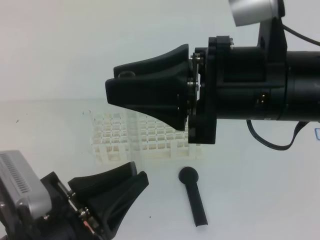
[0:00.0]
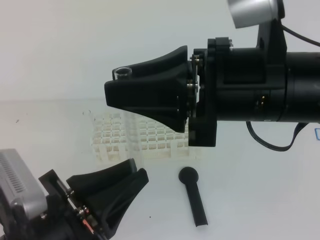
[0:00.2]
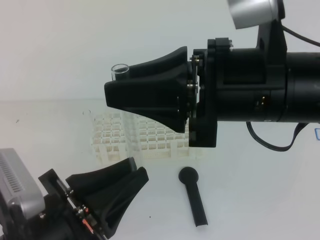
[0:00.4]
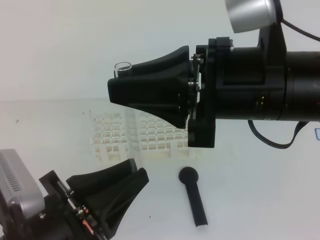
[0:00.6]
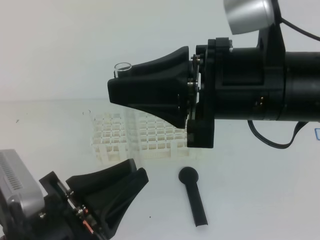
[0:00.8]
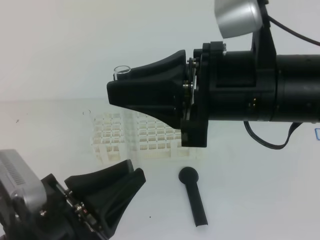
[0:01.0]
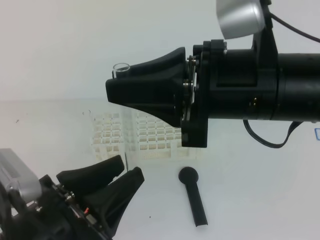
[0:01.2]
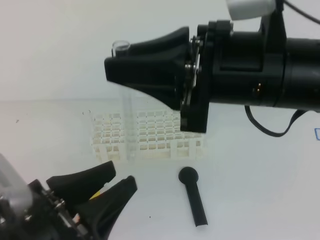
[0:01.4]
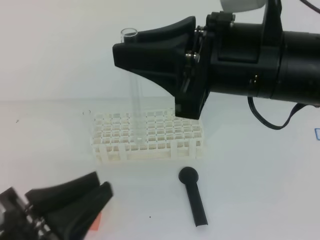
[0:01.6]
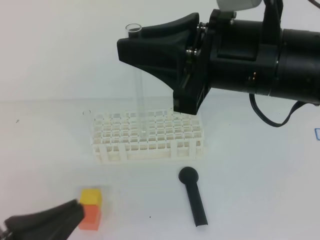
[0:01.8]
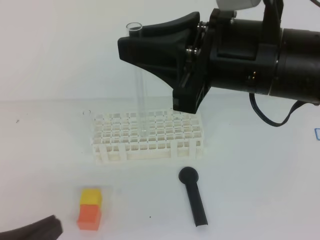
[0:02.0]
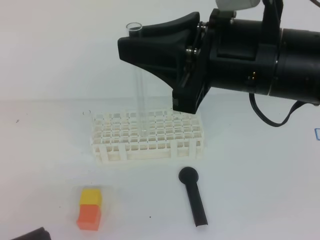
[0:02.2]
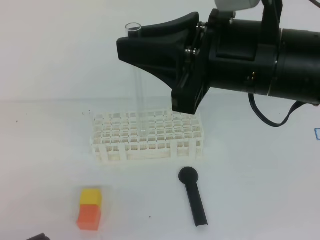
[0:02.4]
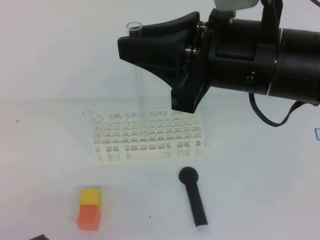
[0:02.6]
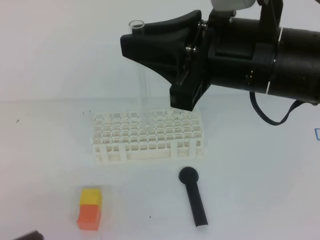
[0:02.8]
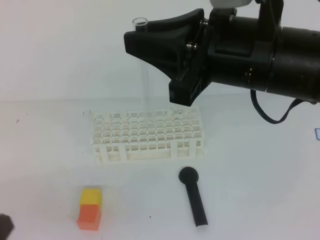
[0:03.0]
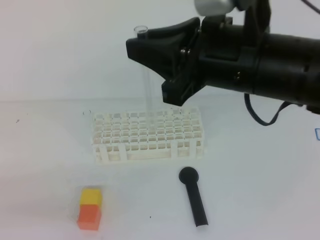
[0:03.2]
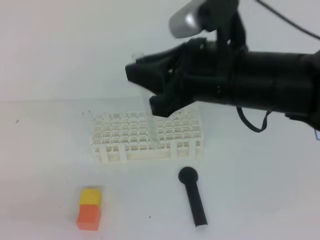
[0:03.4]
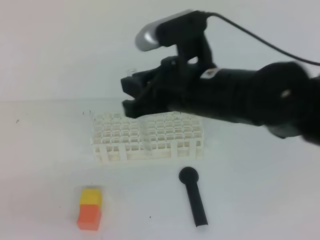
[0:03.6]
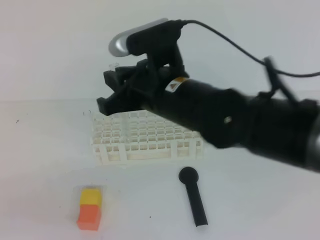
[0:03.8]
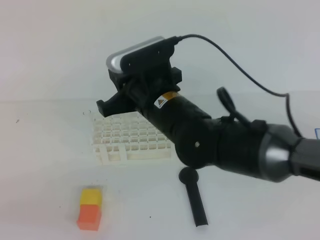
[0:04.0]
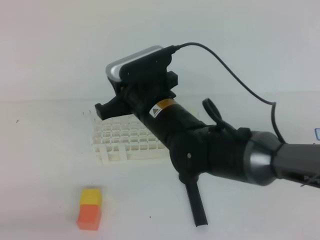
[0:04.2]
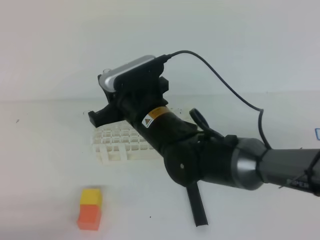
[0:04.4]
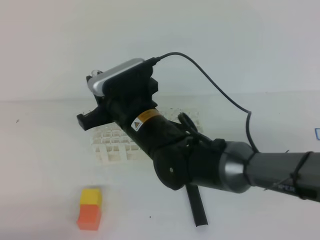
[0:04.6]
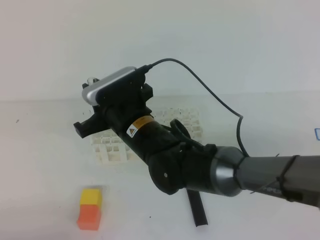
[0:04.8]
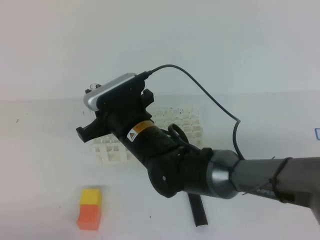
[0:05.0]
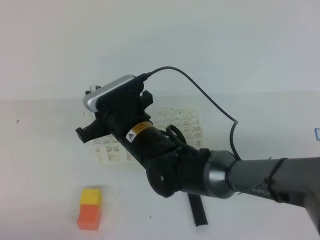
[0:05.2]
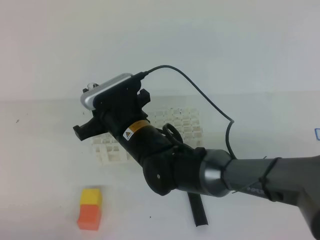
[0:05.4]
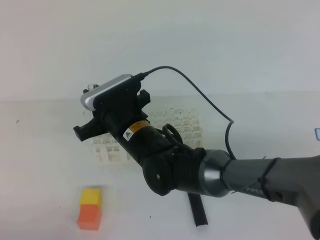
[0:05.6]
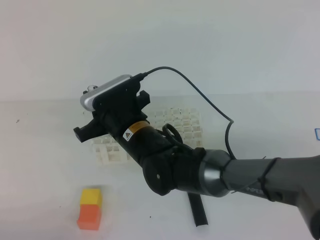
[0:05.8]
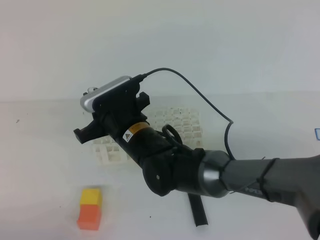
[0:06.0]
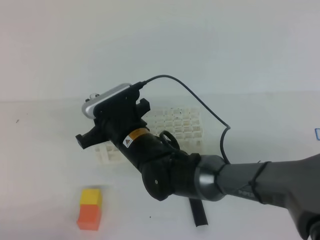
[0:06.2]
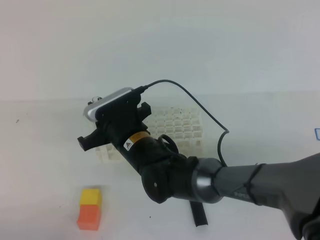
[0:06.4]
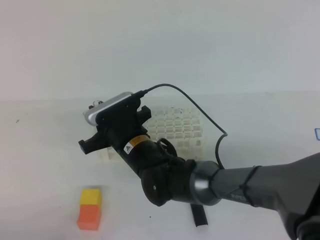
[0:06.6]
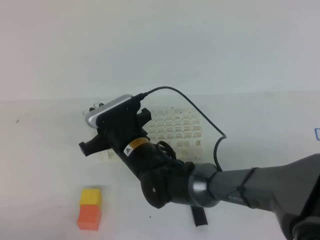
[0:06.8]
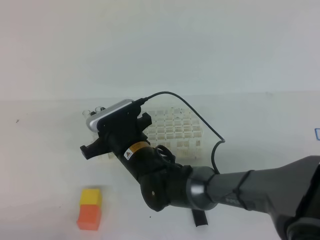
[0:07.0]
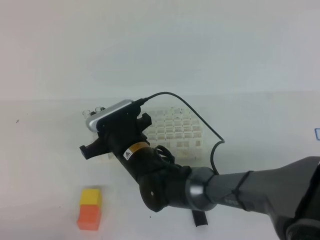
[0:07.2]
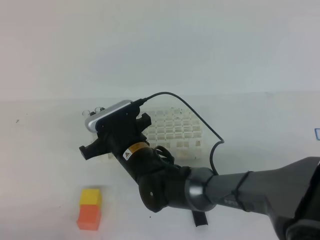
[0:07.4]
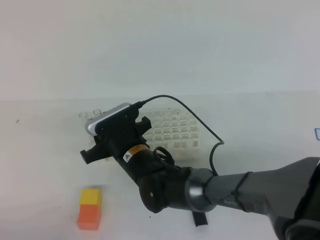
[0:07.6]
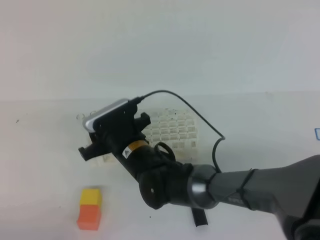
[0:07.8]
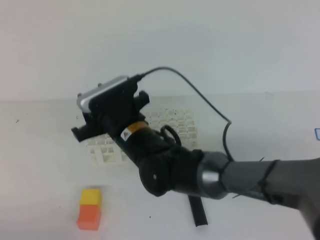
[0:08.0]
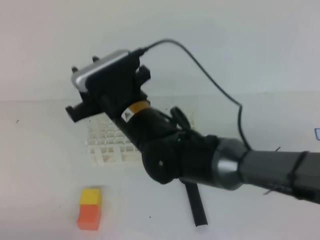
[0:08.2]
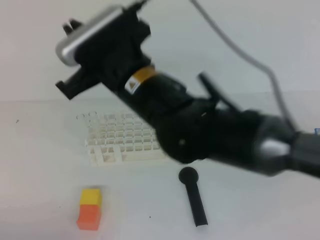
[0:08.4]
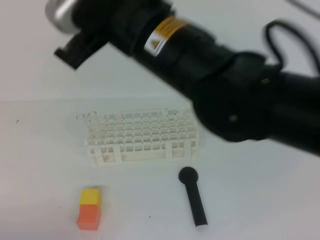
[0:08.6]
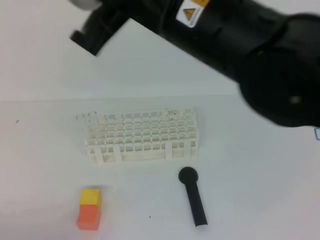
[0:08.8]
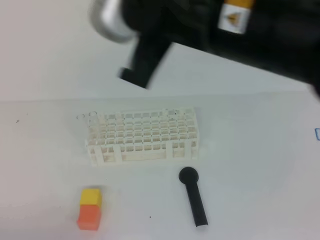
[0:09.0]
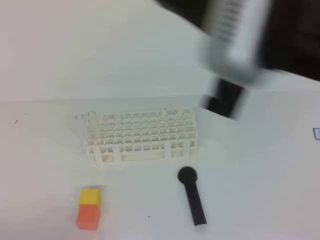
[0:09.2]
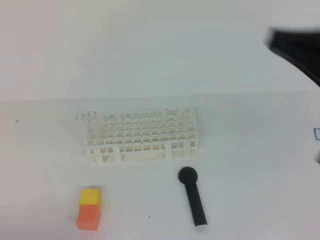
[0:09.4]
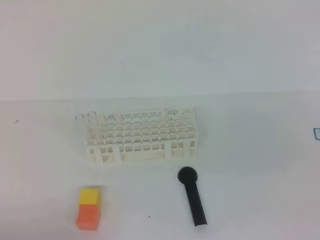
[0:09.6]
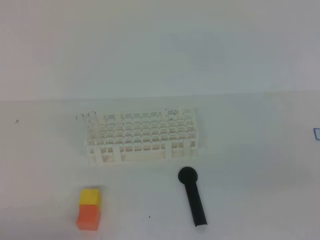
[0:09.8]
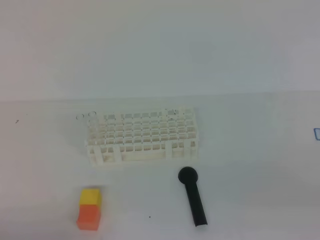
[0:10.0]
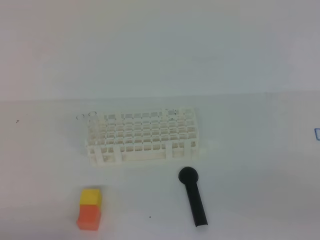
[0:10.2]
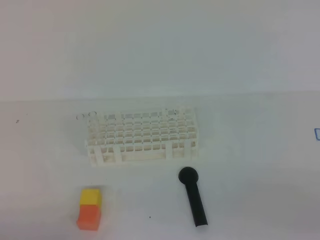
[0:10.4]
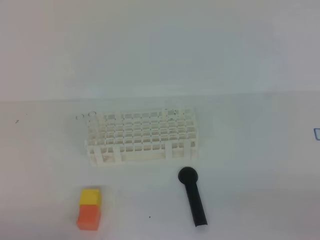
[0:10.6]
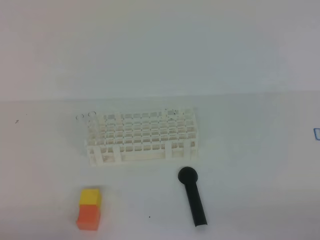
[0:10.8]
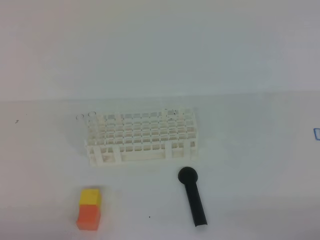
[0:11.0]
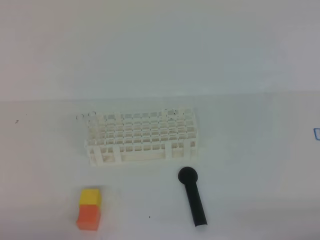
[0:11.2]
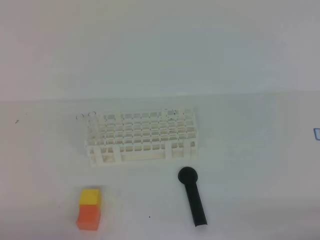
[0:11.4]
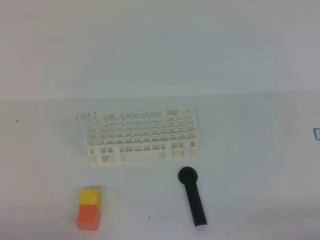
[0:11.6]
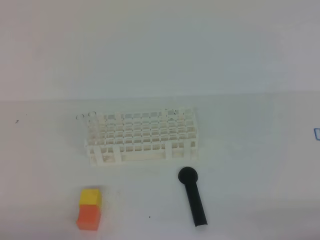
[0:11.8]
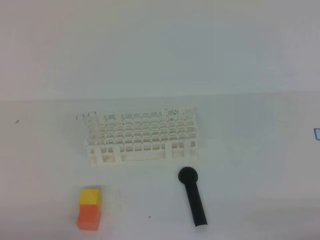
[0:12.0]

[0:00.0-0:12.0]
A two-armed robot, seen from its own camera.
0:01.6 to 0:03.0: The left gripper heads to the left, covering some 10 cm, and closes its fingers.
0:03.0 to 0:04.4: The left gripper travels downward by some 5 cm. The right gripper heads downward, to the left and forward, covering roughly 20 cm.
0:04.4 to 0:06.0: The right gripper changes place by about 5 cm.
0:06.0 to 0:07.6: The right gripper travels downward by about 5 cm.
0:07.6 to 0:09.0: The right gripper shifts approximately 30 cm upward, and closes its fingers.
0:09.0 to 0:10.4: The right gripper goes about 35 cm to the right, downward and backward.

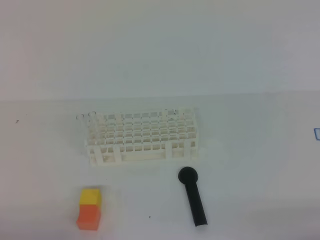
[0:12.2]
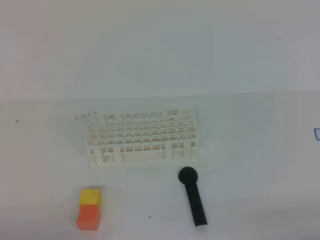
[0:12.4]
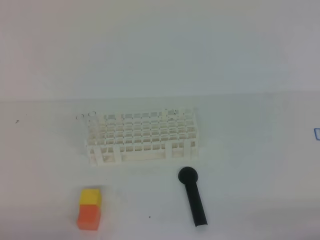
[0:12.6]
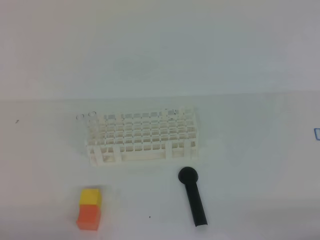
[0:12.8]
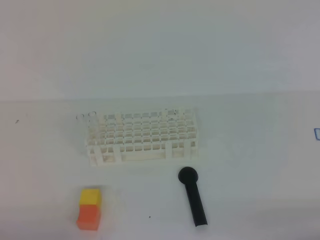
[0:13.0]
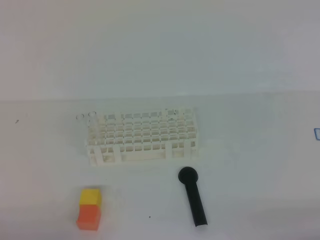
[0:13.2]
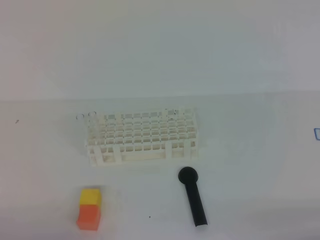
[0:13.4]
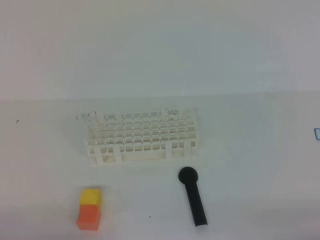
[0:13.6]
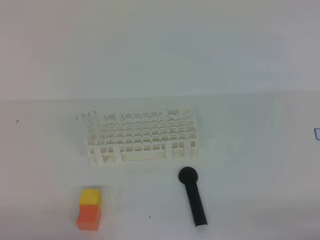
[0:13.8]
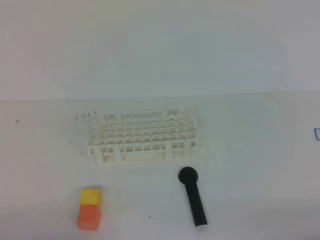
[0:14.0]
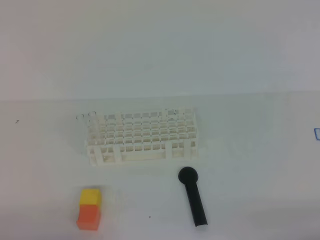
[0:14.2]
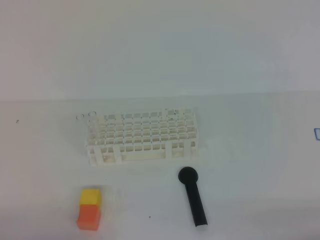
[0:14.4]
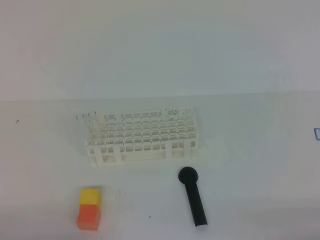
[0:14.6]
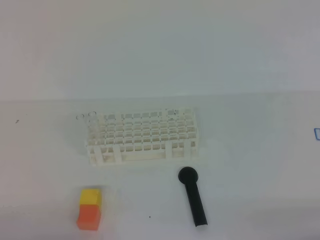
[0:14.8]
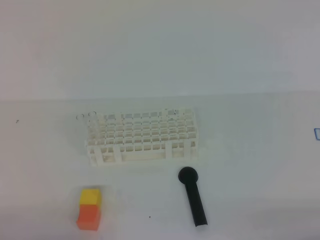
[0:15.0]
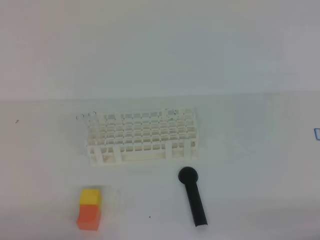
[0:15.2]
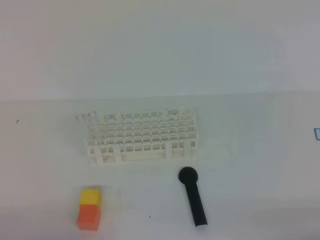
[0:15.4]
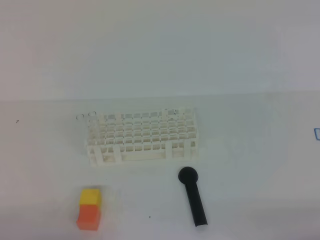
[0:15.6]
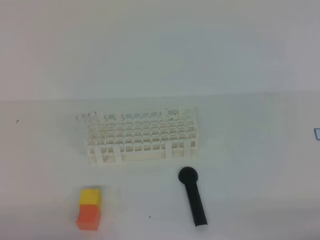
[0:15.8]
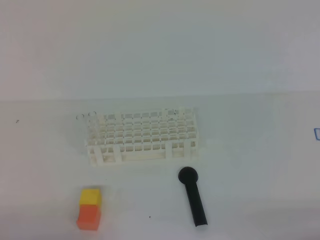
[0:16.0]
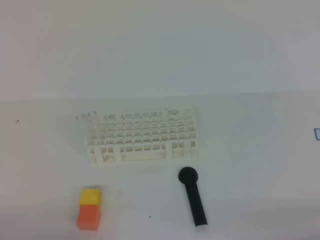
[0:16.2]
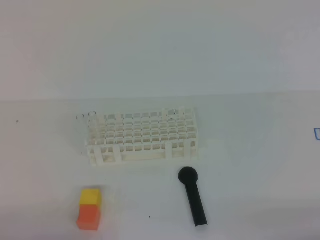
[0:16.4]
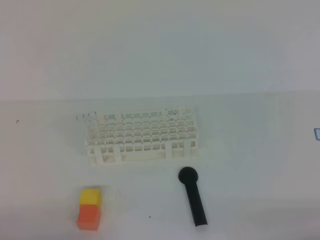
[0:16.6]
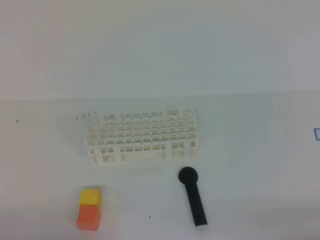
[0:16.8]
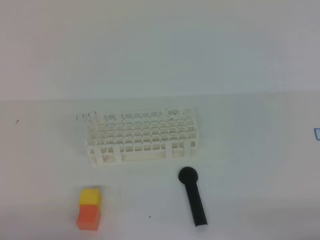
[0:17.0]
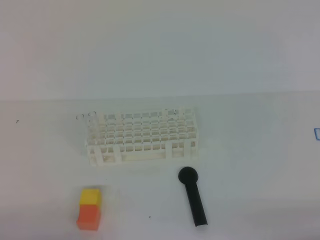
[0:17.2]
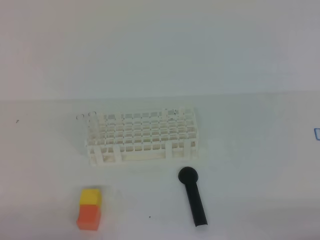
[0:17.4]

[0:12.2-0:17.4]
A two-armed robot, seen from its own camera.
0:14.0 to 0:17.4: Both grippers stay about where they are.
